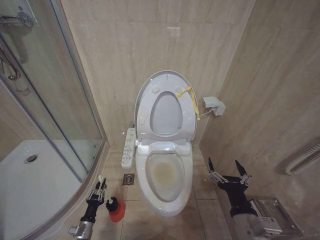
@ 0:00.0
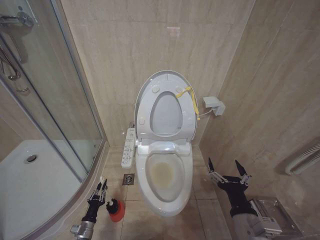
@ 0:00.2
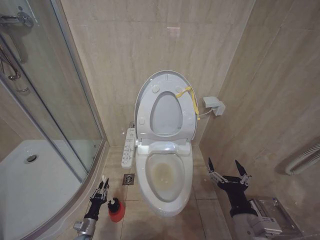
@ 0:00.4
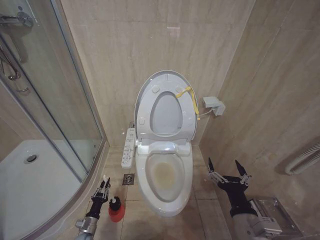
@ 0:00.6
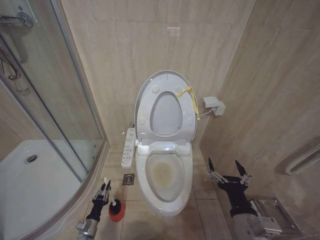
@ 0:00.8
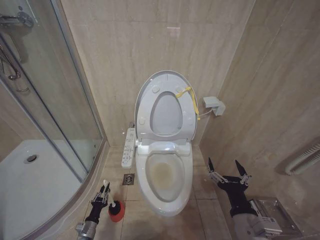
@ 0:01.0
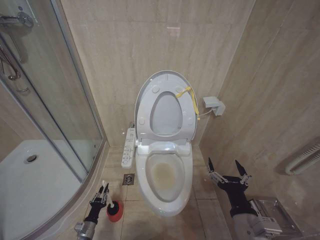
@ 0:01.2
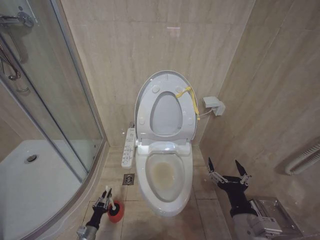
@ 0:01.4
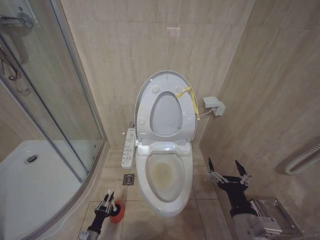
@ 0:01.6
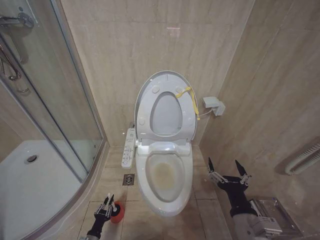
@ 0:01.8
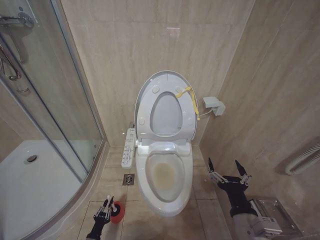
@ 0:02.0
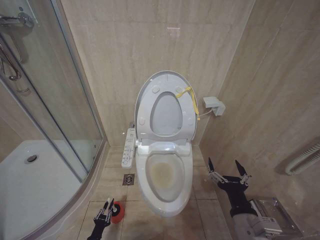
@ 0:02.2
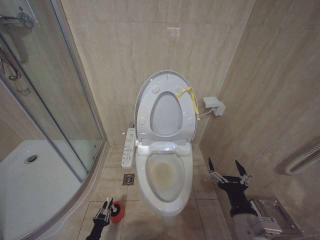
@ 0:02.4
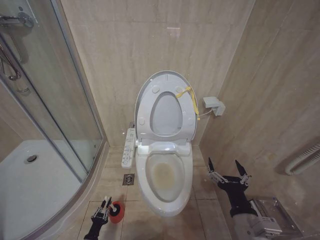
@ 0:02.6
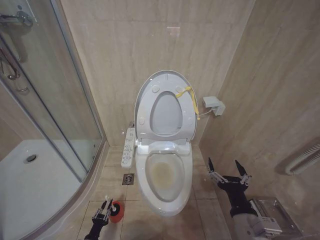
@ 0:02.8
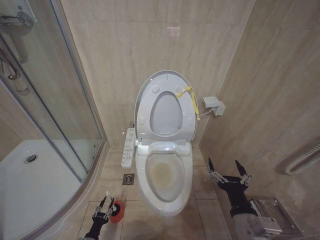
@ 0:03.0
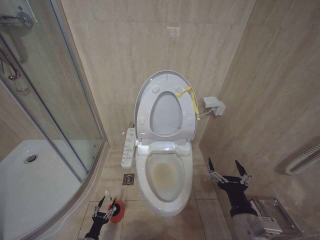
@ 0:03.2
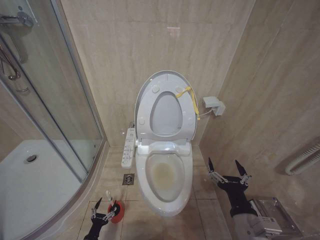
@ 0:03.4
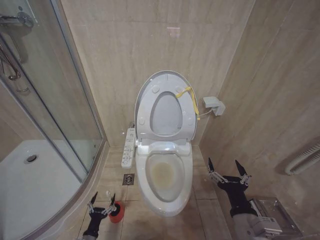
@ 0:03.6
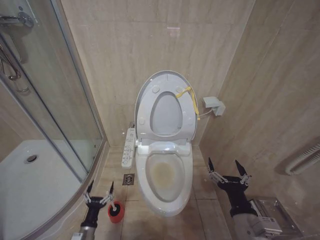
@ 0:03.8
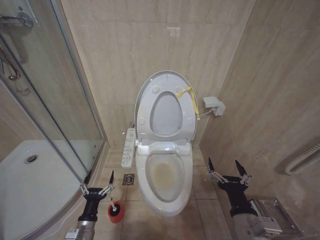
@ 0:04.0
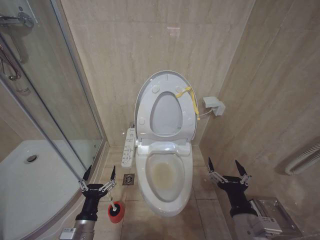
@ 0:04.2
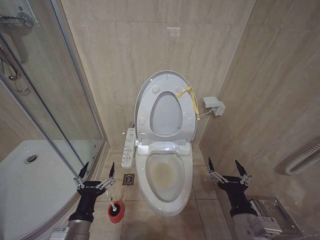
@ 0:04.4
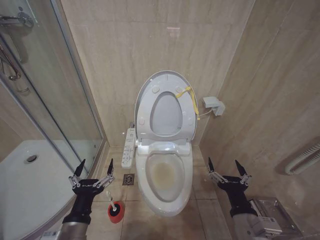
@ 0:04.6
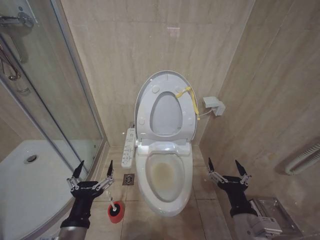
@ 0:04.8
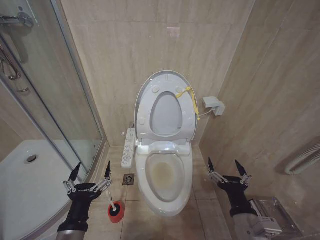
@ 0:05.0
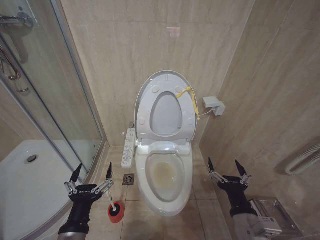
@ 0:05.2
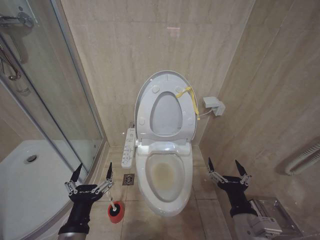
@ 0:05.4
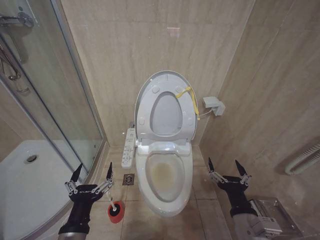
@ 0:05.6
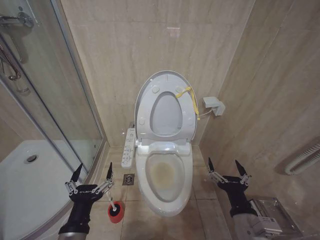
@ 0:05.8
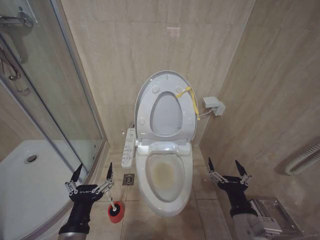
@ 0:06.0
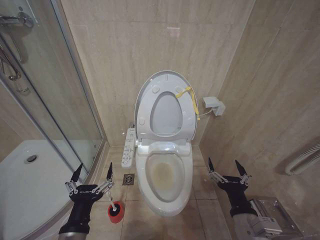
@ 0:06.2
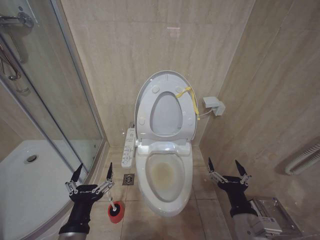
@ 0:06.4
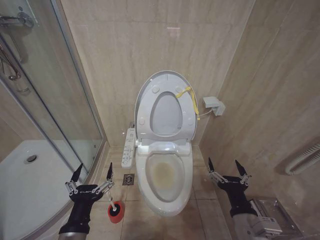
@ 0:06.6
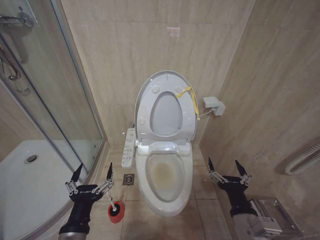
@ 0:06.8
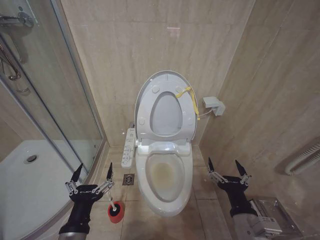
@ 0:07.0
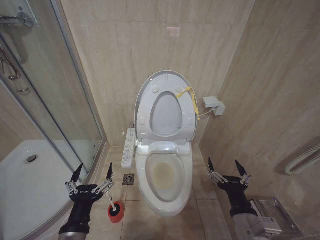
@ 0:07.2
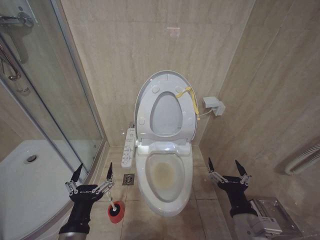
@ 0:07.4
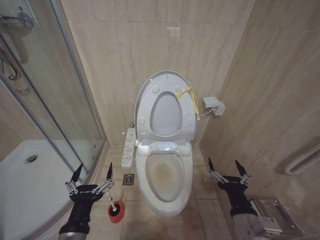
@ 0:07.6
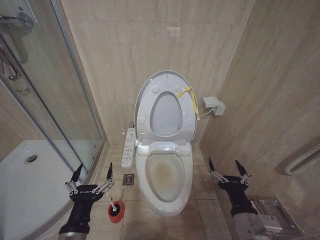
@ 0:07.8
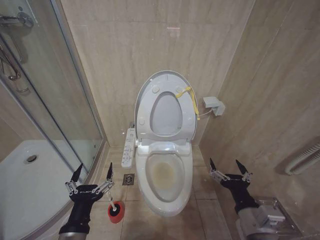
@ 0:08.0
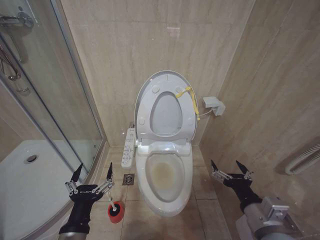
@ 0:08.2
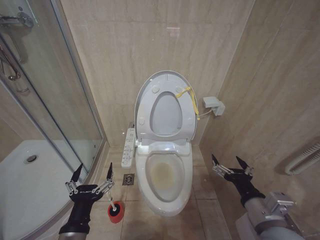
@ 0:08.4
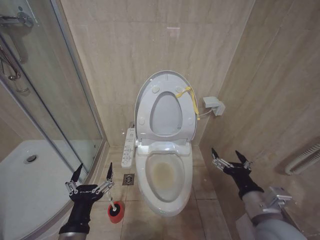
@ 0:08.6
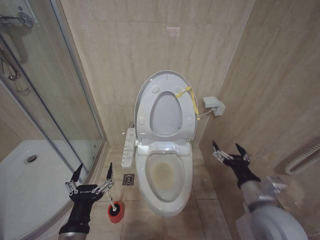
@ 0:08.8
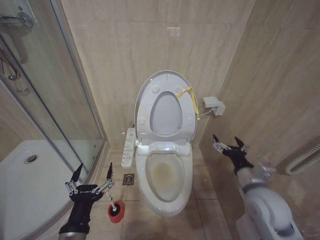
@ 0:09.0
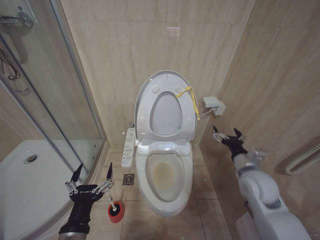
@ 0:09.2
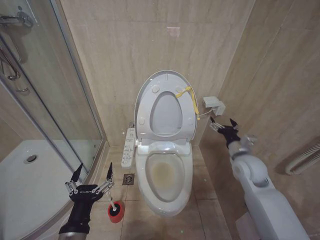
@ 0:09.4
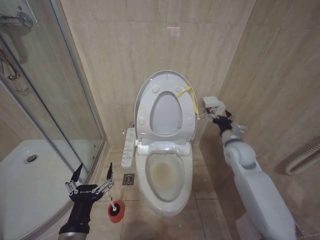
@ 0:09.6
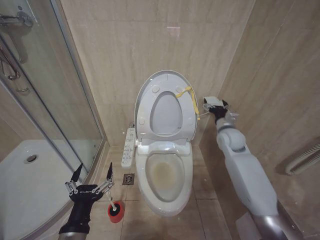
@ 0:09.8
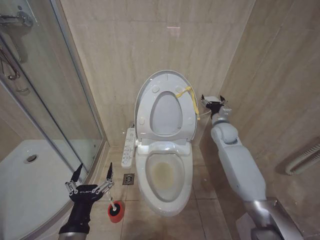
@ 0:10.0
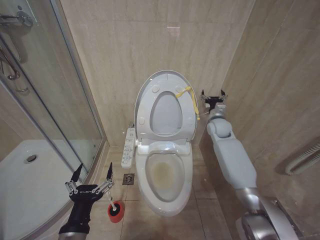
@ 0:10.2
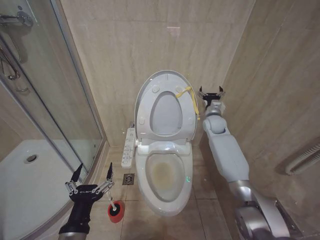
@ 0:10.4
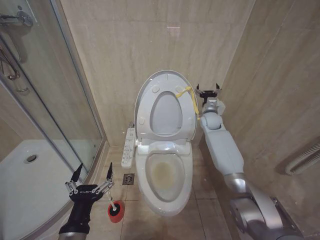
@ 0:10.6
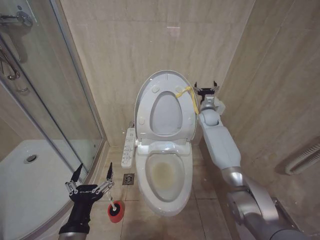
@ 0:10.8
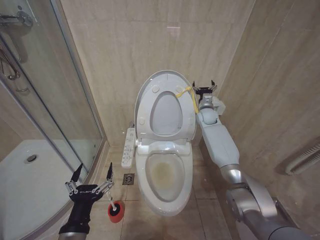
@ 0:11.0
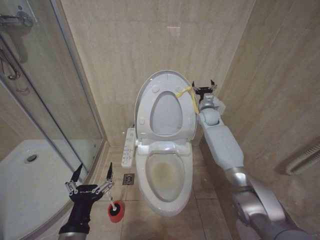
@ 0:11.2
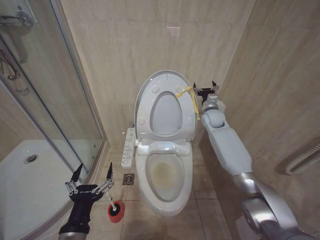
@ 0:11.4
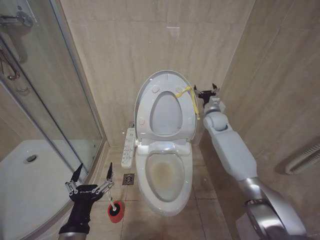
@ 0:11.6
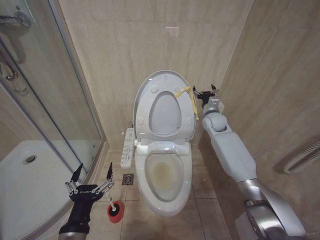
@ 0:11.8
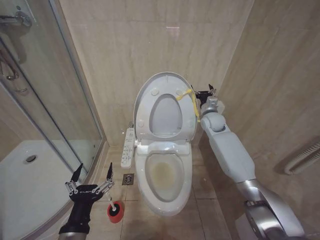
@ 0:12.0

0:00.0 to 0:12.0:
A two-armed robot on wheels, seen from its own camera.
Task of the whole recording: Open the toilet lid, clean the toilet bowl with a toilet brush, close the toilet lid, and flush.
0:00.0 to 0:01.6: The left gripper shifts about 5 cm downward.
0:03.0 to 0:04.4: The left gripper is displaced upward by some 35 cm, and opens.
0:04.4 to 0:06.0: The left gripper is displaced upward by about 5 cm.
0:06.0 to 0:07.6: The two grippers keep their place.
0:07.6 to 0:09.0: The right gripper shifts about 10 cm forward and to the right.
0:09.0 to 0:10.4: The right gripper heads forward, covering about 35 cm.
0:10.4 to 0:12.0: The grippers move only a little.

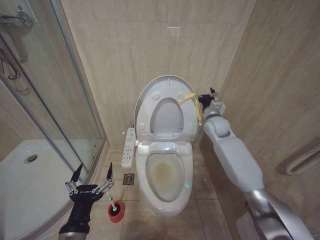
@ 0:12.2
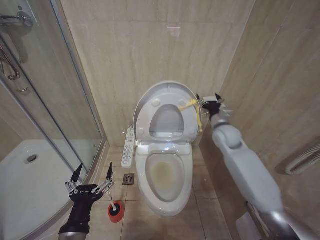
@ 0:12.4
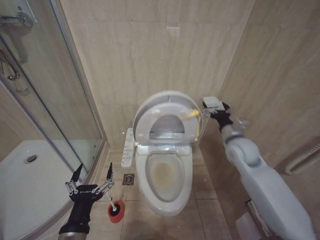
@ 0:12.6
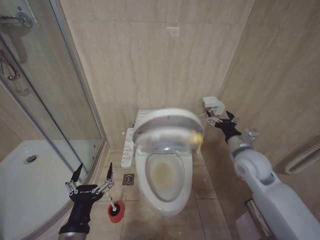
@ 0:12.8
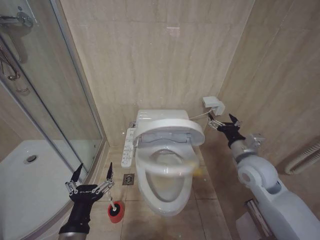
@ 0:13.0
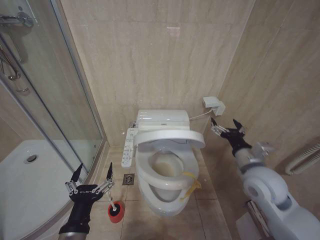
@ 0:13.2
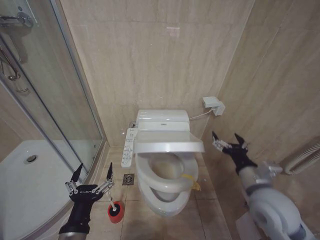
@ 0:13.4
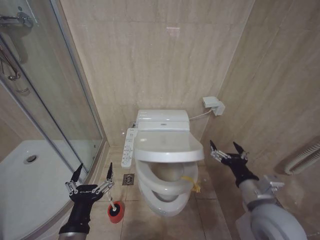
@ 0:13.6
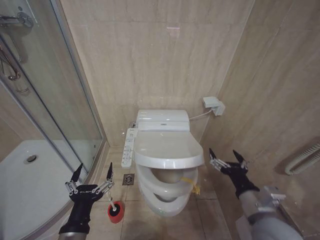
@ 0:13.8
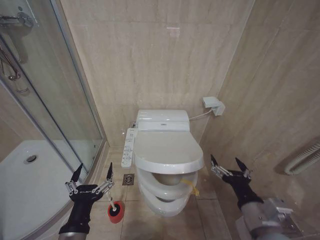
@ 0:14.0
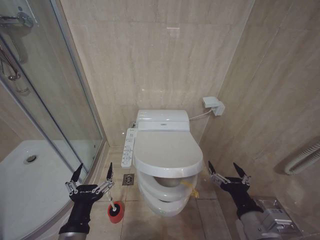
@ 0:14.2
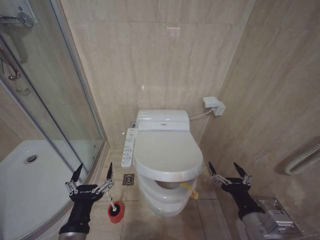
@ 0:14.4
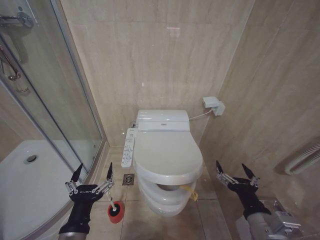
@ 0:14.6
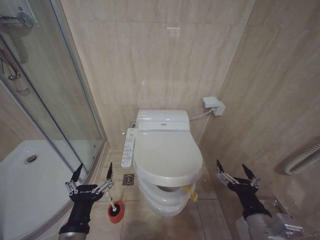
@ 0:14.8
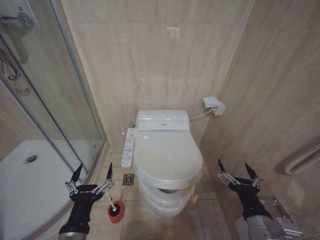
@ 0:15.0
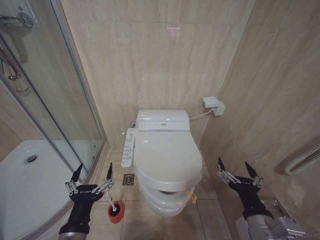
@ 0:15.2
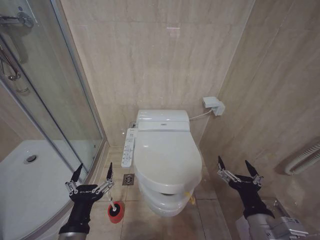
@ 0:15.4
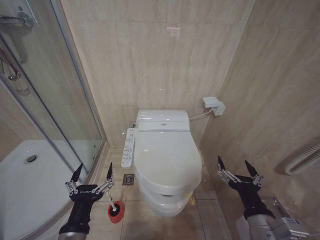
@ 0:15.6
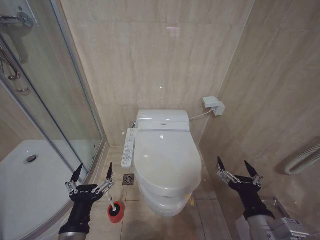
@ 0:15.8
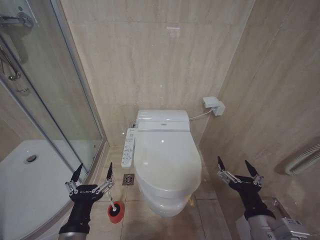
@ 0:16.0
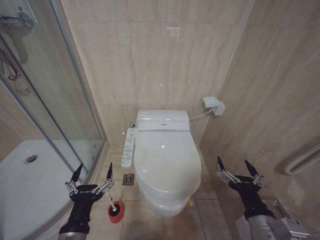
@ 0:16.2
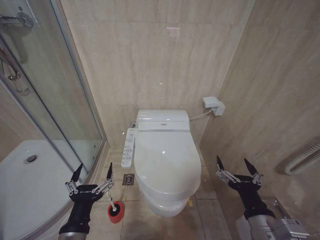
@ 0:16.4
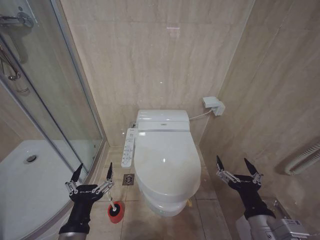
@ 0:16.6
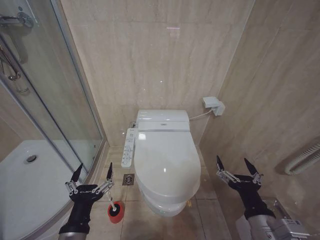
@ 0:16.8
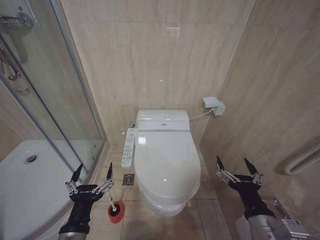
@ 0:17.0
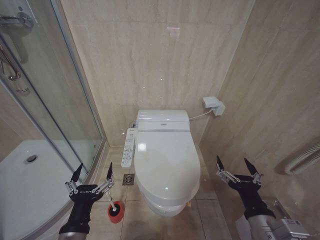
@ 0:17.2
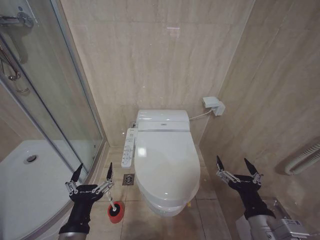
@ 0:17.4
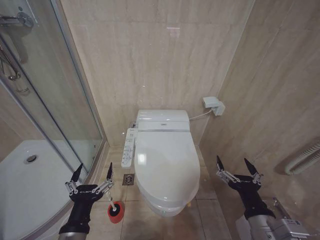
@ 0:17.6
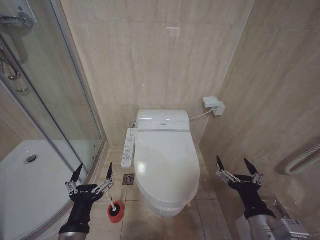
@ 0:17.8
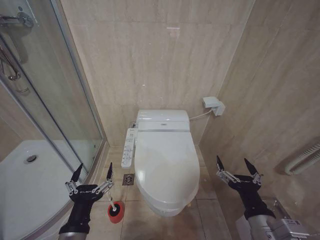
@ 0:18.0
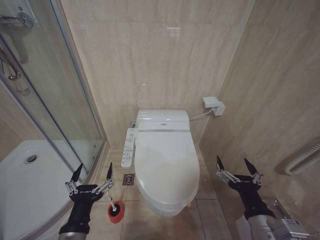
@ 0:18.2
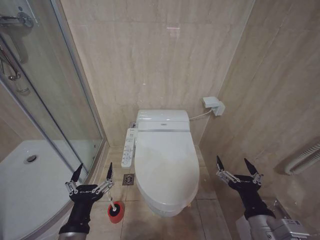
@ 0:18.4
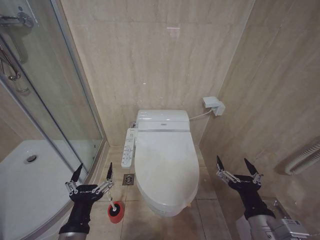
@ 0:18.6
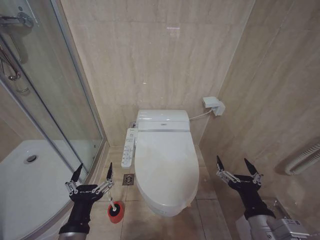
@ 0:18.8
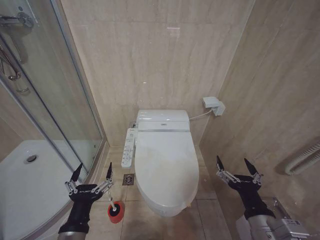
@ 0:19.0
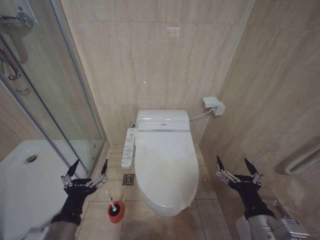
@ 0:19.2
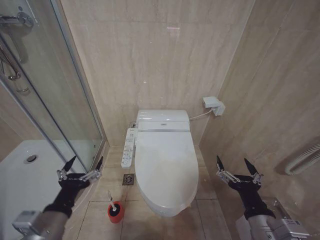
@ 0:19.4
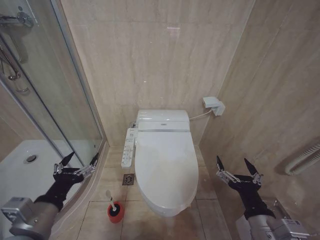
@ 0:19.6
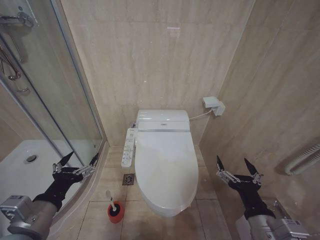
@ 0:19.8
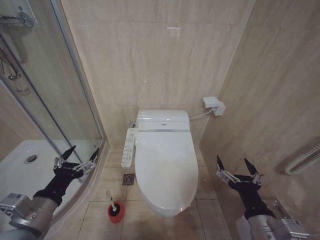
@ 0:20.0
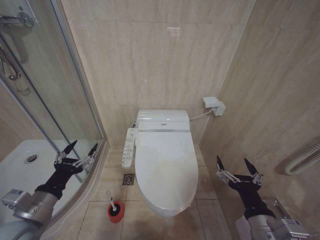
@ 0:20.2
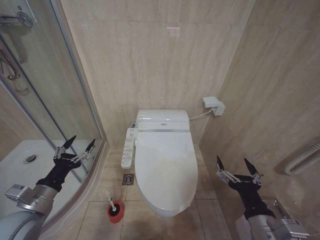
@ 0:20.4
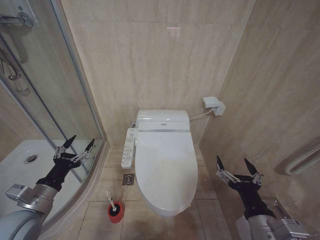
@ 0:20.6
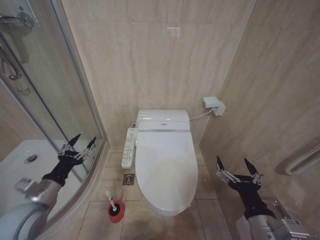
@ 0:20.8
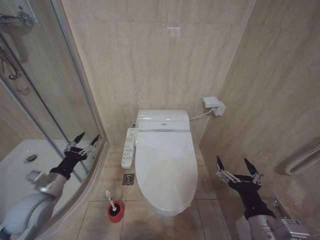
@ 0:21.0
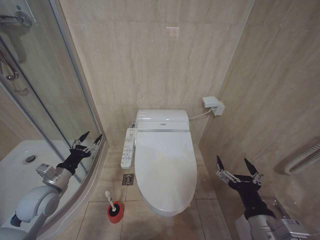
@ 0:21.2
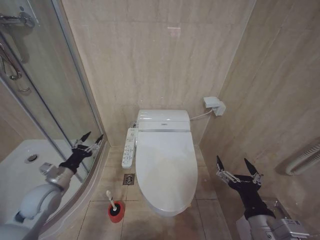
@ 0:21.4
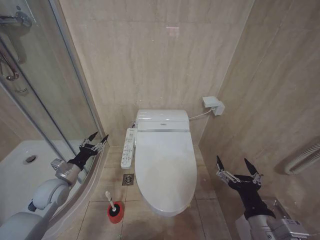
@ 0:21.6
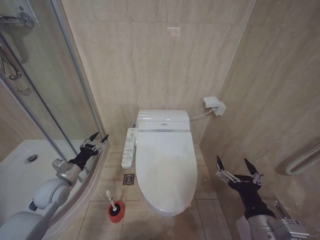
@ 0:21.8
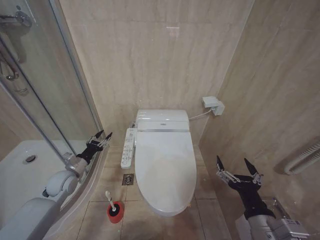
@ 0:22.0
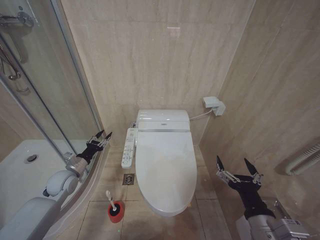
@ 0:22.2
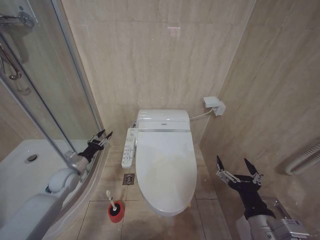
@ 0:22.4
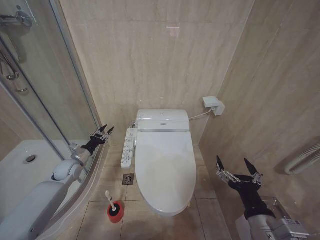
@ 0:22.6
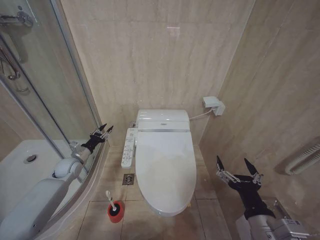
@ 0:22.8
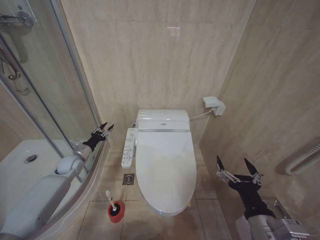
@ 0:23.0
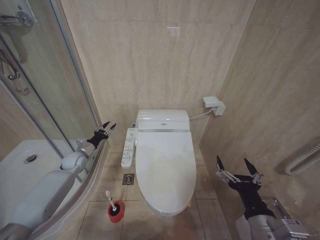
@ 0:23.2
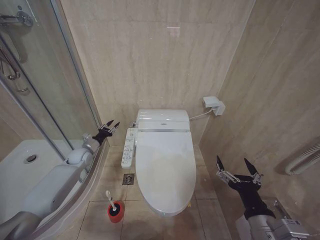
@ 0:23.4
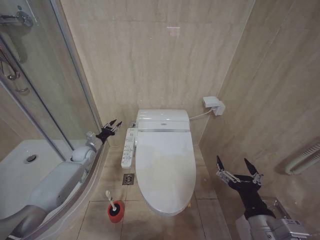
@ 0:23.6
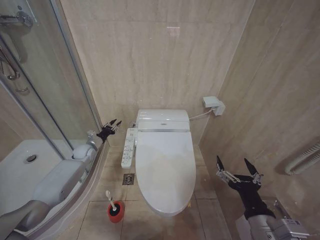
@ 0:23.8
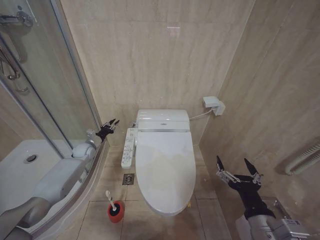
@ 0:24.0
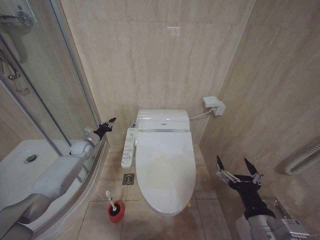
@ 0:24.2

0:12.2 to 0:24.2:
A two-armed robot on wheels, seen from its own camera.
Task of the whole recording: Open the toilet lid, clean the toilet bowl with a toilet brush, close the toilet lid, and flush.
0:12.2 to 0:13.8: The right gripper heads backward, covering about 35 cm.
0:13.8 to 0:15.2: The right gripper shifts about 5 cm backward.
0:15.2 to 0:18.2: The two grippers keep their place.
0:18.2 to 0:19.8: The left gripper is displaced to the left and upward by roughly 10 cm.
0:19.8 to 0:21.2: The left gripper heads forward, downward and to the left, covering about 15 cm.
0:21.2 to 0:22.6: The left gripper shifts about 15 cm forward and downward.
0:22.6 to 0:24.2: The left gripper shifts approximately 10 cm forward.
